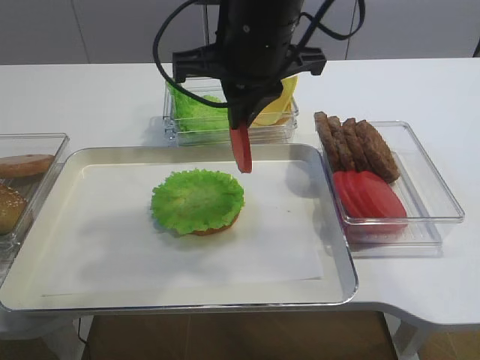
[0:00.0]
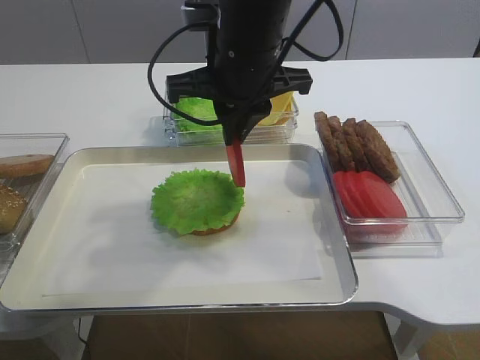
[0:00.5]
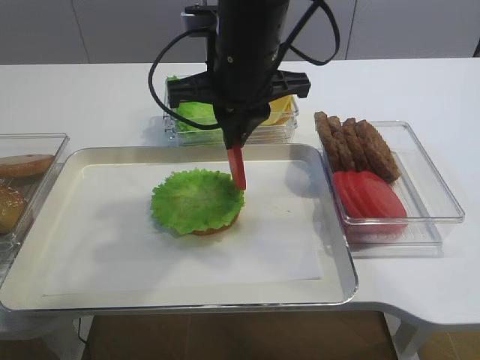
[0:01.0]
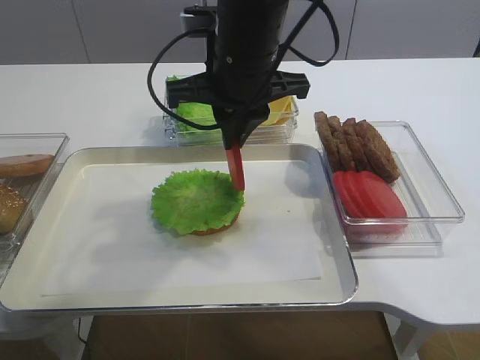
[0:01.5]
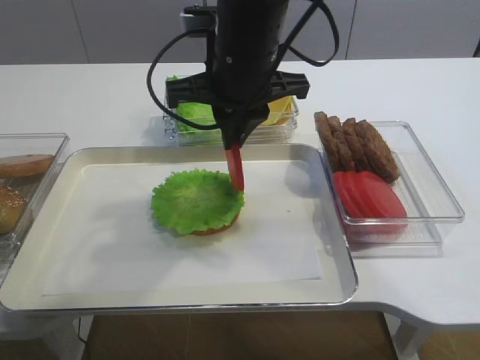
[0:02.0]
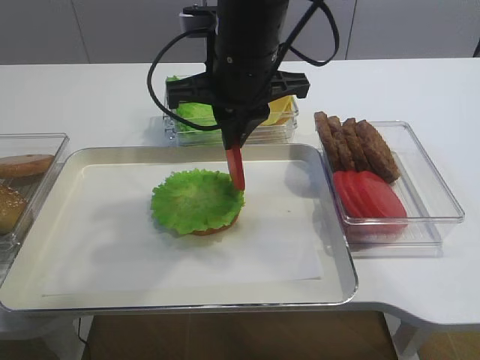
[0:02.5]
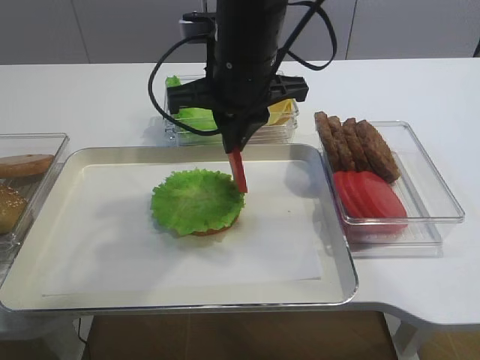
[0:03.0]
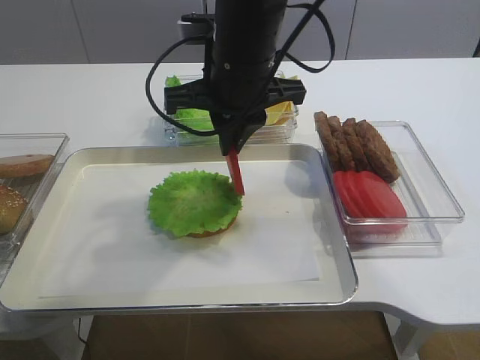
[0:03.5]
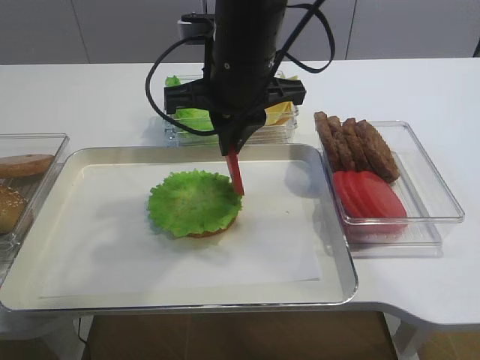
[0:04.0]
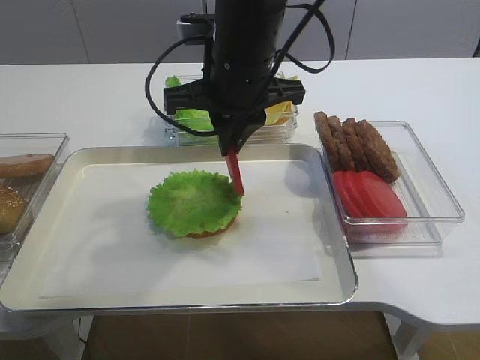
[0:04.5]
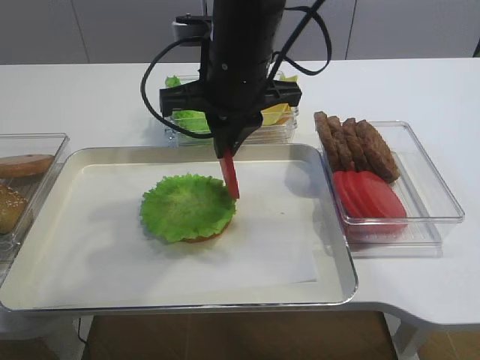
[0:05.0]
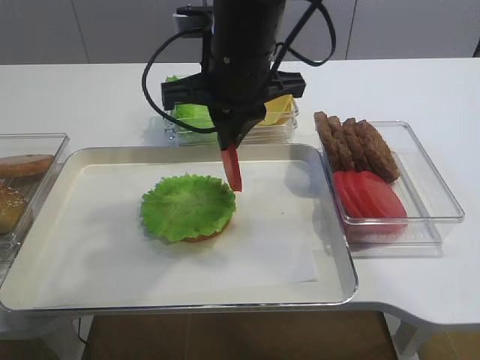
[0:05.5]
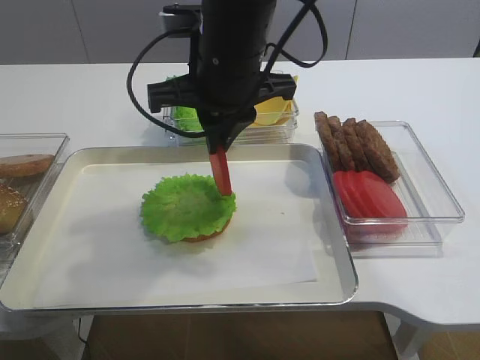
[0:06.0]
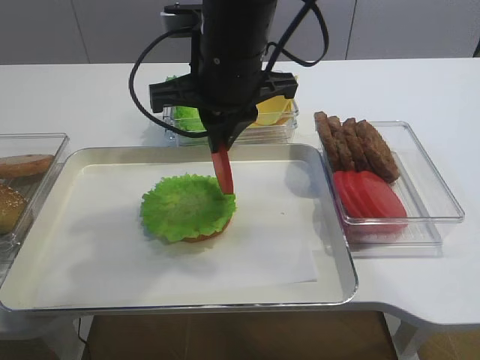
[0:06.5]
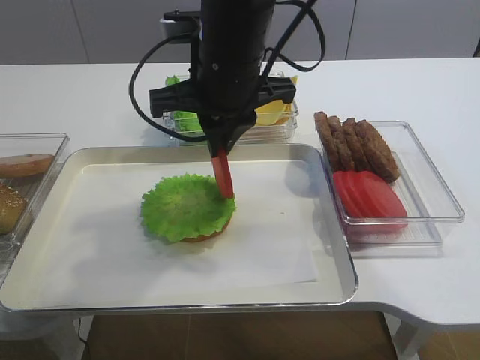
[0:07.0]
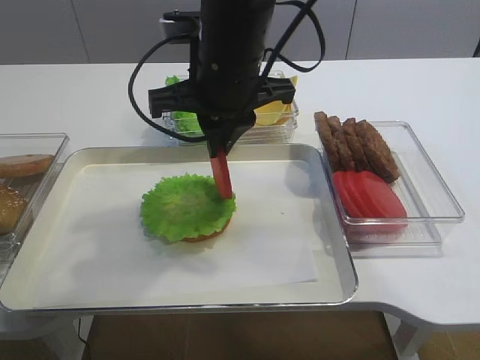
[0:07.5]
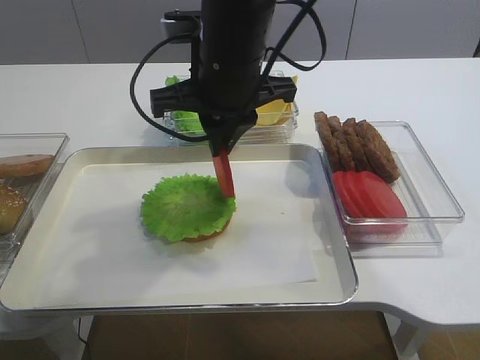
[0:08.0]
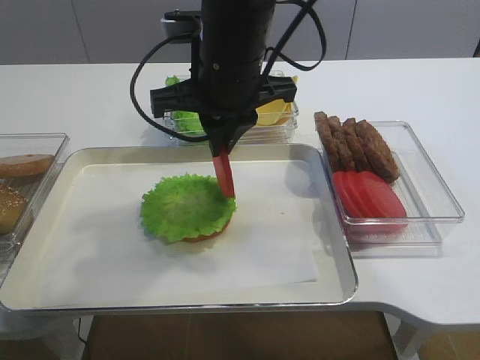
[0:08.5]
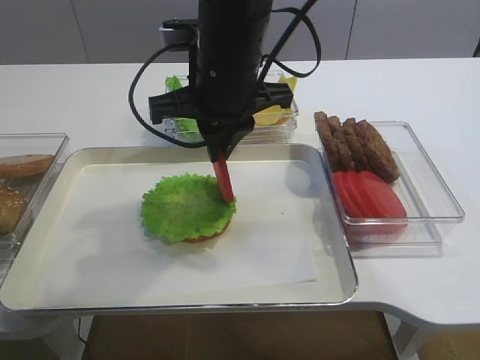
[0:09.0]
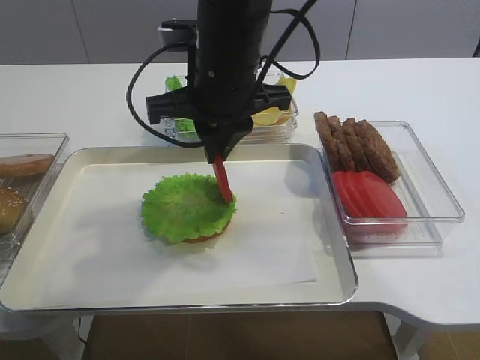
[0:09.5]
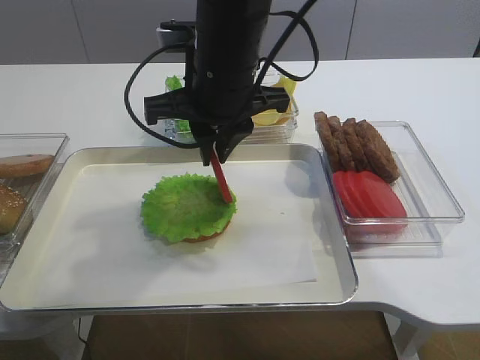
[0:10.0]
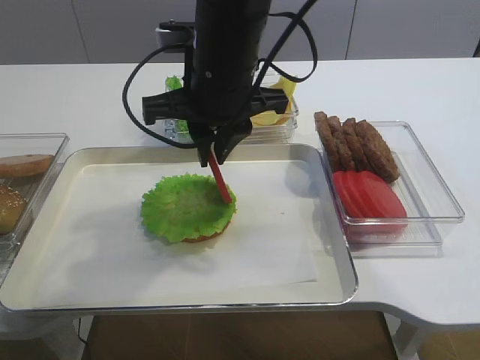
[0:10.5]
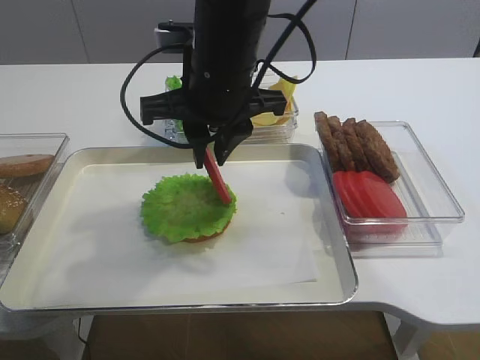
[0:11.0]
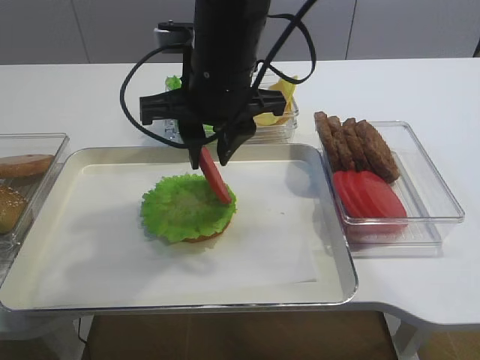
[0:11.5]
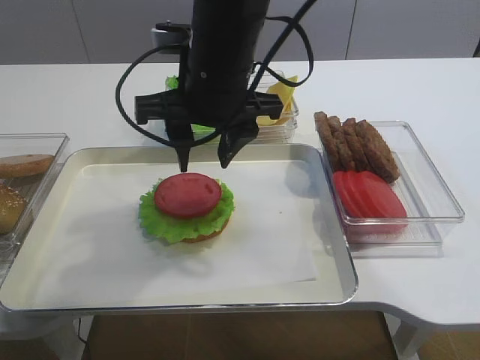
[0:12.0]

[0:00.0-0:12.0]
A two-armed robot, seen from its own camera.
0:00.0 to 0:02.0: The grippers make only small movements.
0:02.0 to 0:04.0: Both grippers stay put.
0:04.0 to 0:06.0: There are only small adjustments of the grippers.
0:06.0 to 0:10.0: Both grippers stay put.
0:10.0 to 0:12.0: The right gripper opens up.

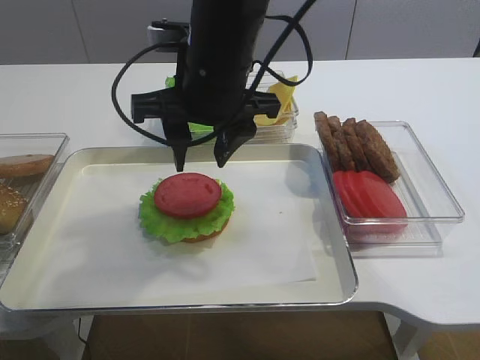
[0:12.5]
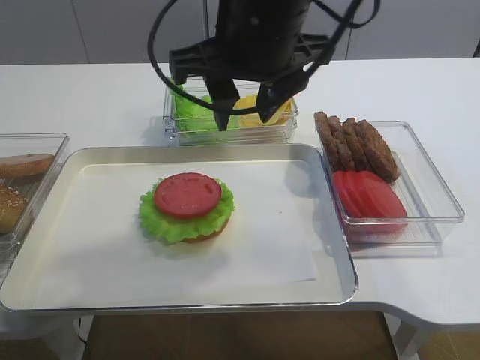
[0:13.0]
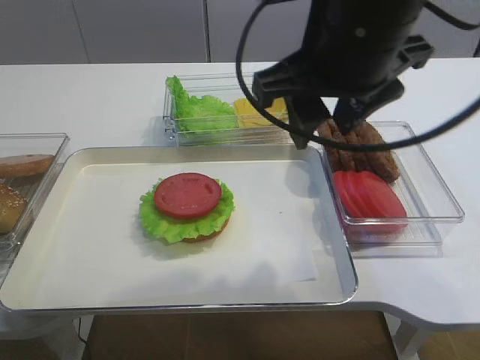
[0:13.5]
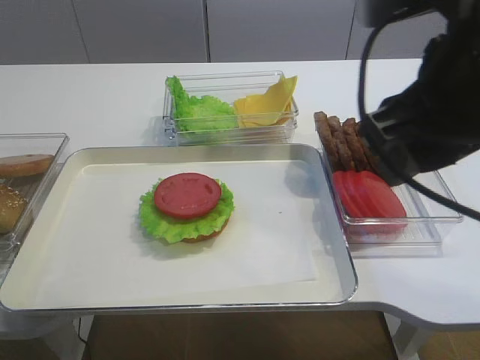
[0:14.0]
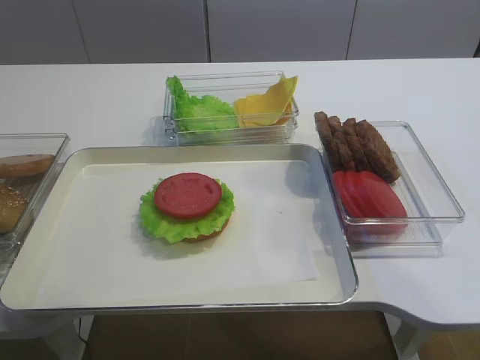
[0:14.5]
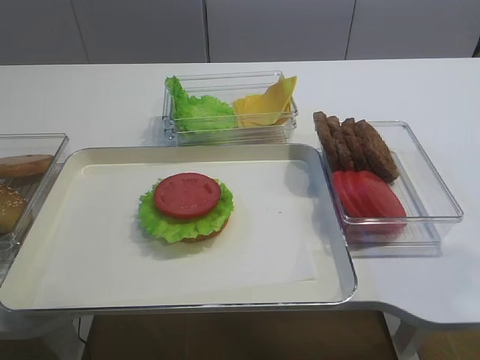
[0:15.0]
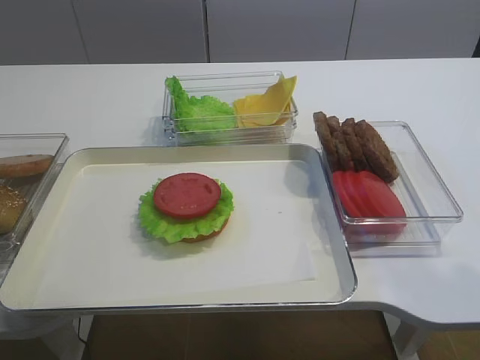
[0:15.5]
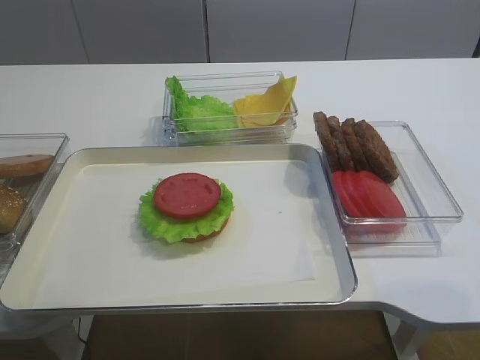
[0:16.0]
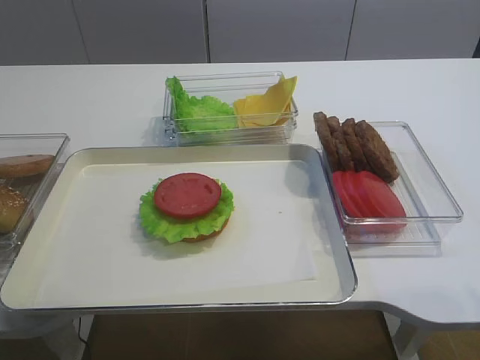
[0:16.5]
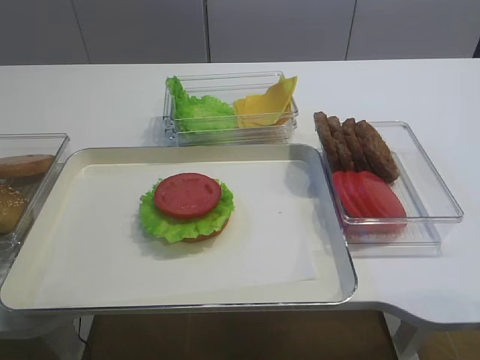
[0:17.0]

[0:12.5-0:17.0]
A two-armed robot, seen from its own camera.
0:12.5 to 0:14.5: The right gripper heads to the right and backward, covering approximately 30 cm.
0:14.5 to 0:17.0: The right gripper travels backward, downward and to the right by approximately 15 cm.

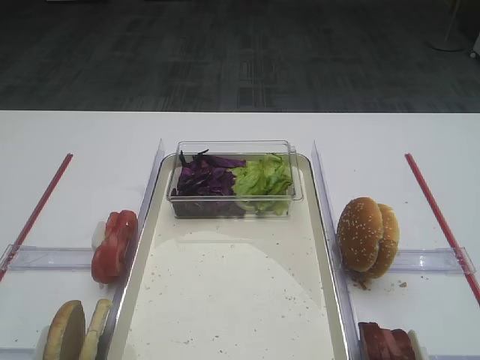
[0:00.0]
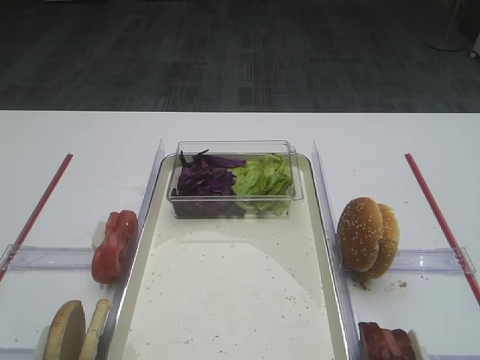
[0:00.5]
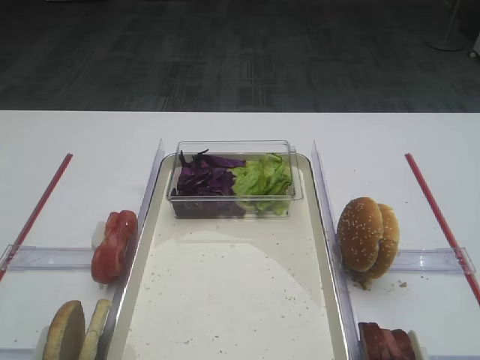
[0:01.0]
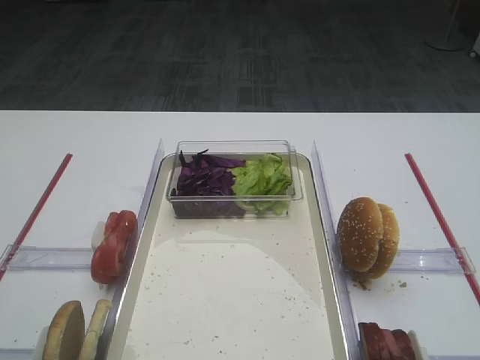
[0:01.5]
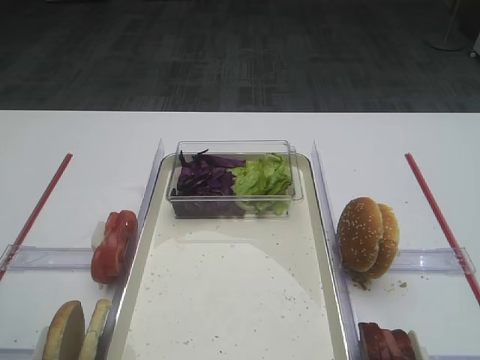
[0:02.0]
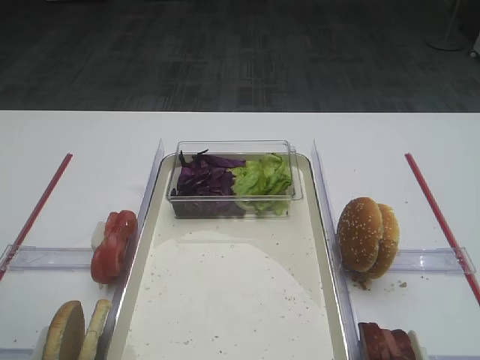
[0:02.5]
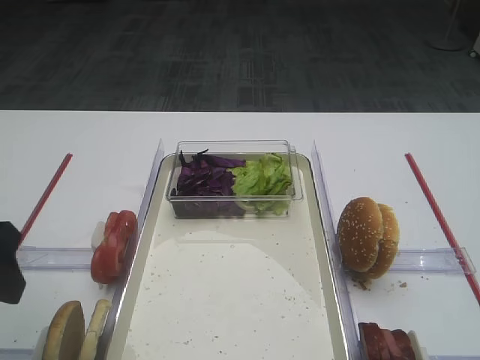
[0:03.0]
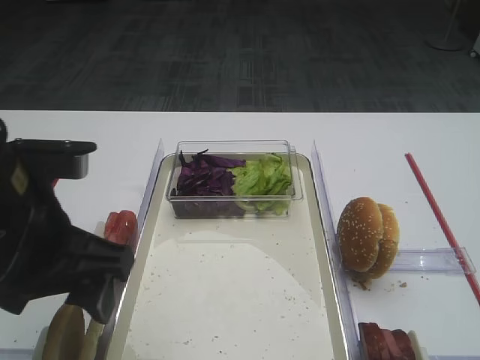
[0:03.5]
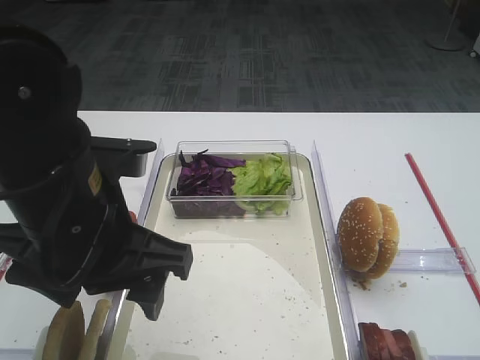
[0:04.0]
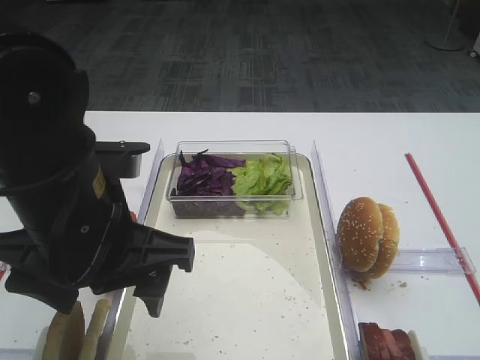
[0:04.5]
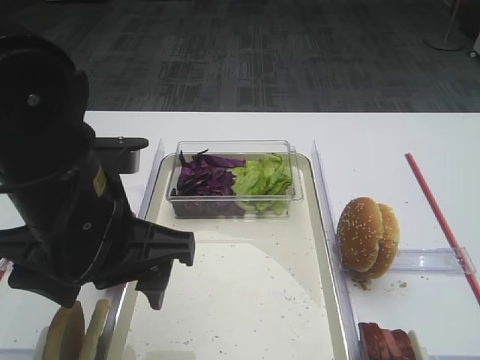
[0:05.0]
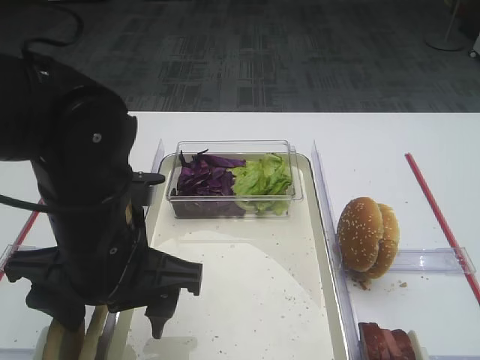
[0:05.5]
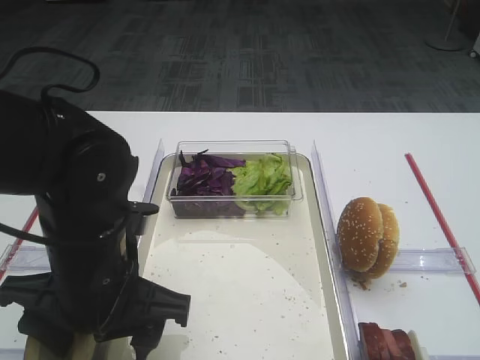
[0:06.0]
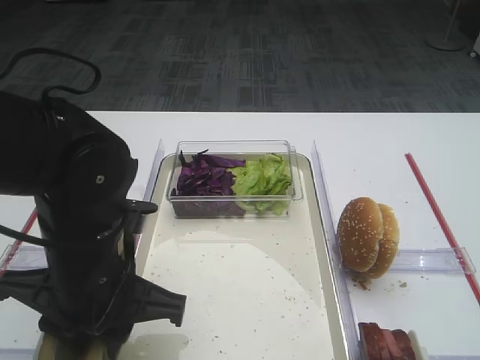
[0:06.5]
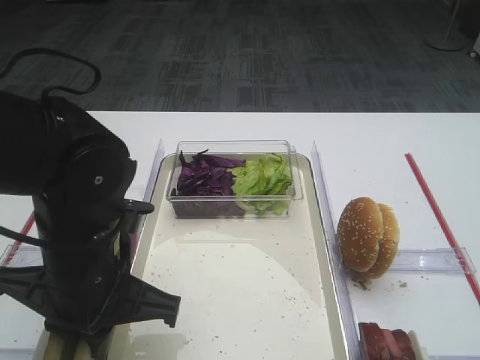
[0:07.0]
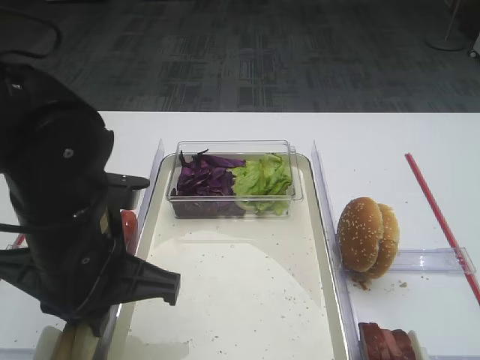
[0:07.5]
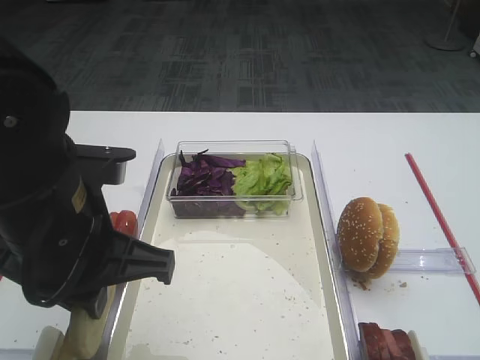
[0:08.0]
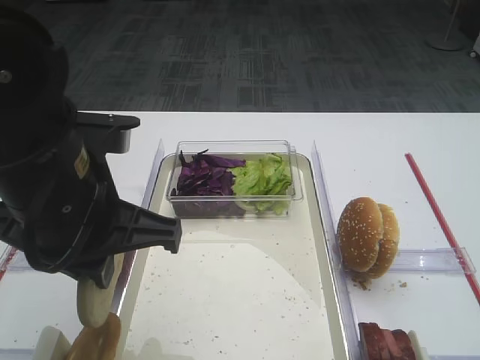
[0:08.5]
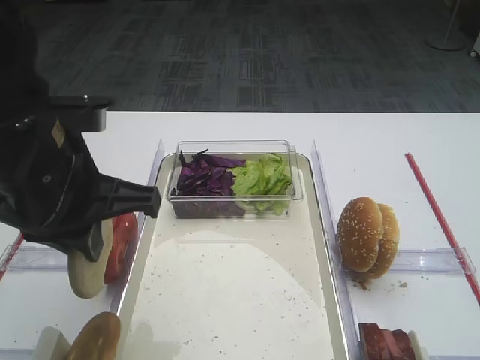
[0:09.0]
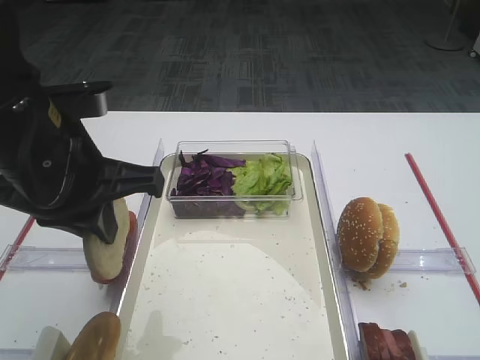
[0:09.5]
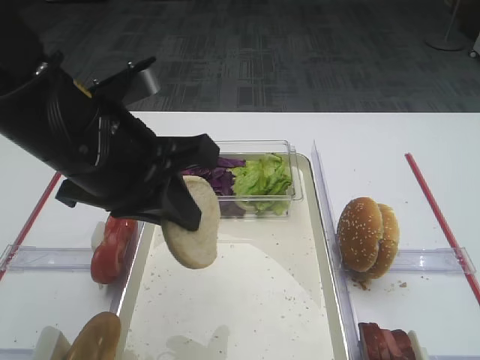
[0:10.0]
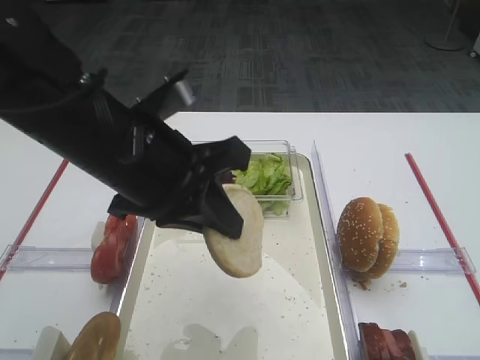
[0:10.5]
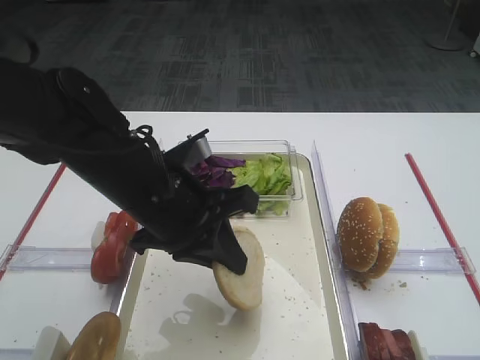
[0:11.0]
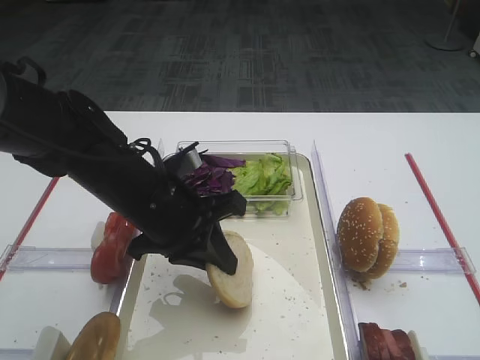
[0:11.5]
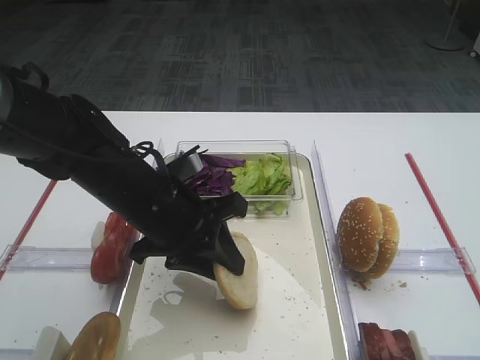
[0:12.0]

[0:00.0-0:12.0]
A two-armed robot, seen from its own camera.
Step, 0:00.0 to 0:08.0: Pick up the bread slice with the left gripper.
0:02.0 to 0:04.0: The left gripper moves to the right, approximately 20 cm.
0:04.0 to 0:06.0: The left gripper heads downward, covering about 5 cm.
0:06.0 to 0:08.0: The left gripper moves upward, approximately 5 cm, and closes up.
0:08.0 to 0:10.0: The left gripper moves some 5 cm.
0:10.0 to 0:12.0: The left gripper is displaced downward and forward by roughly 15 cm, and opens up.
